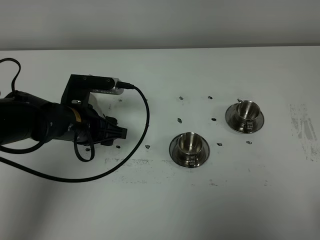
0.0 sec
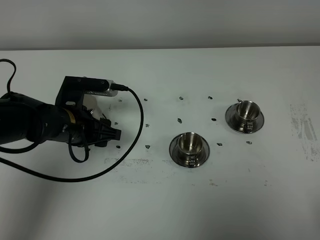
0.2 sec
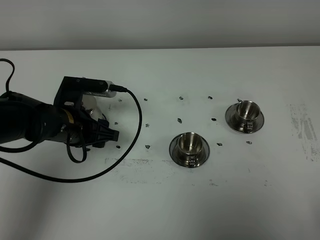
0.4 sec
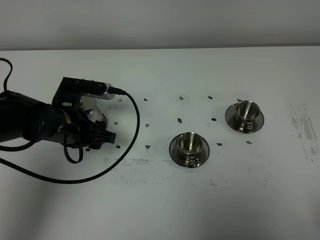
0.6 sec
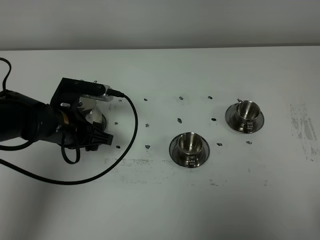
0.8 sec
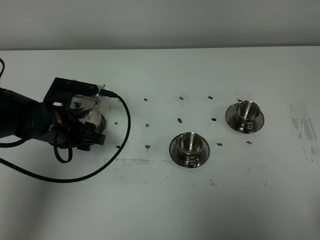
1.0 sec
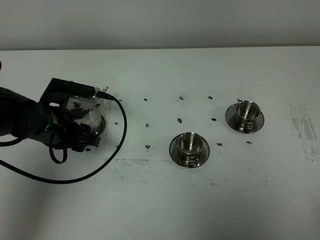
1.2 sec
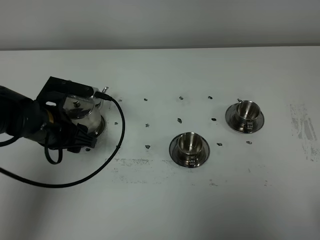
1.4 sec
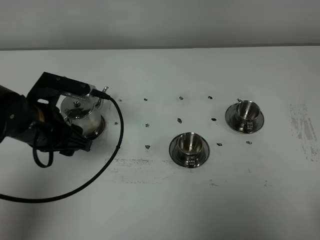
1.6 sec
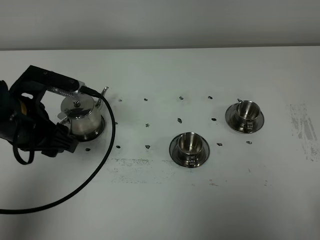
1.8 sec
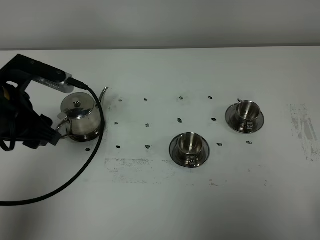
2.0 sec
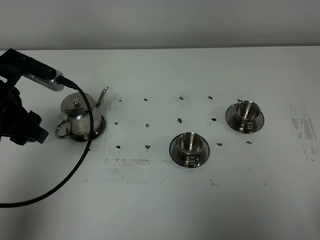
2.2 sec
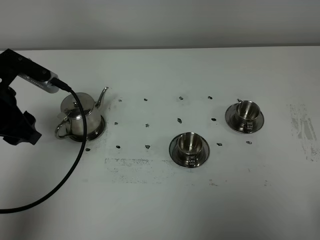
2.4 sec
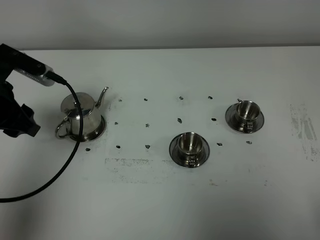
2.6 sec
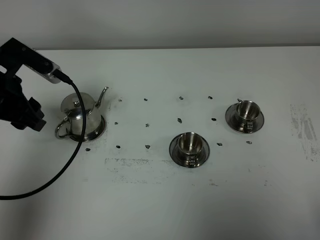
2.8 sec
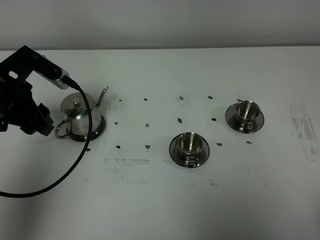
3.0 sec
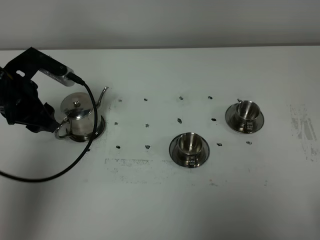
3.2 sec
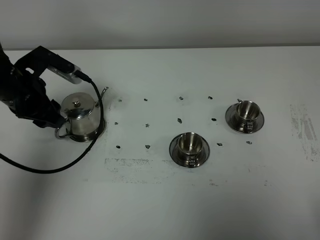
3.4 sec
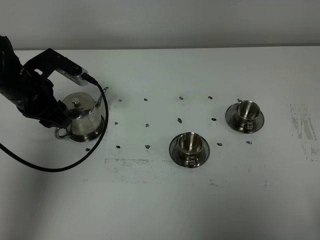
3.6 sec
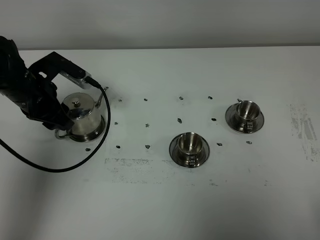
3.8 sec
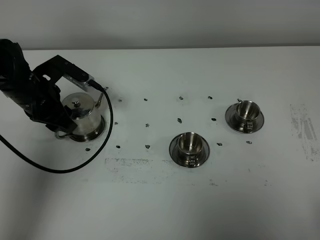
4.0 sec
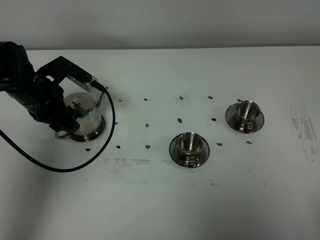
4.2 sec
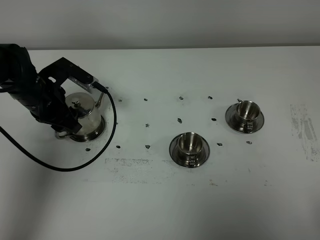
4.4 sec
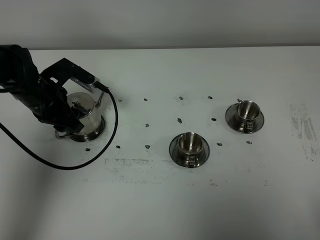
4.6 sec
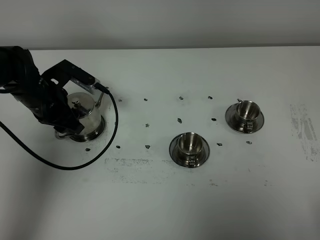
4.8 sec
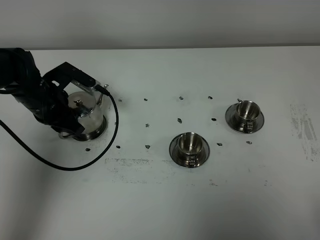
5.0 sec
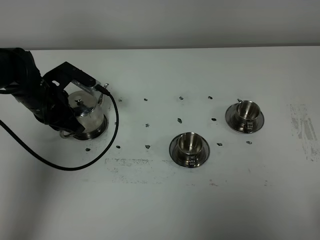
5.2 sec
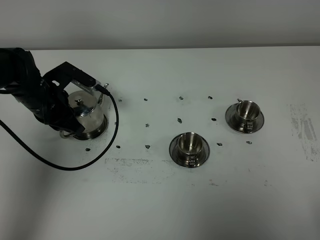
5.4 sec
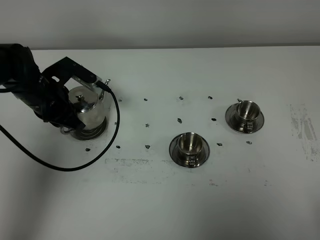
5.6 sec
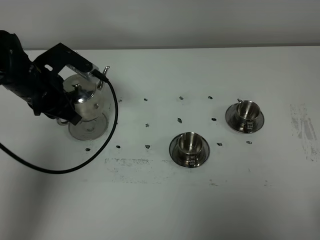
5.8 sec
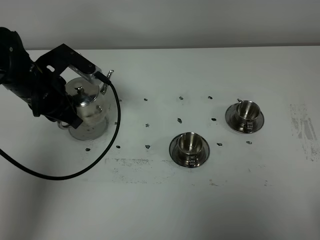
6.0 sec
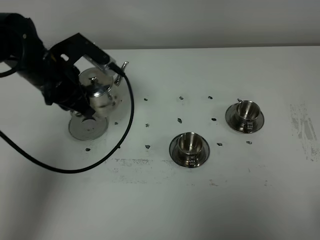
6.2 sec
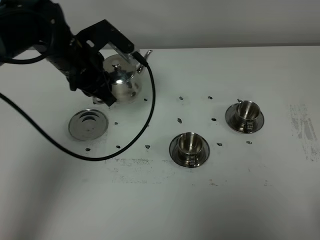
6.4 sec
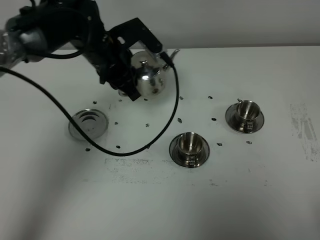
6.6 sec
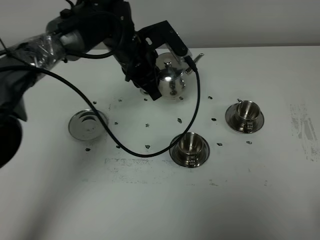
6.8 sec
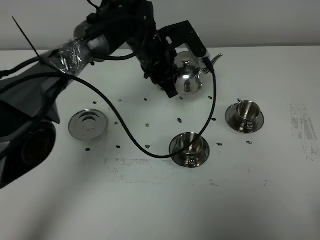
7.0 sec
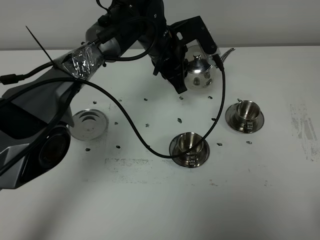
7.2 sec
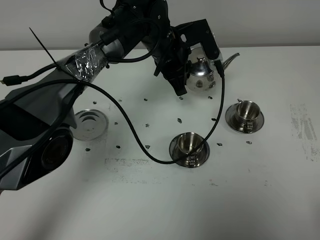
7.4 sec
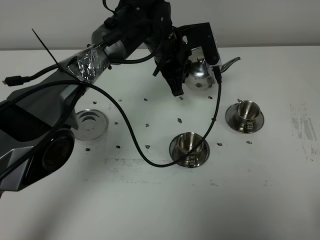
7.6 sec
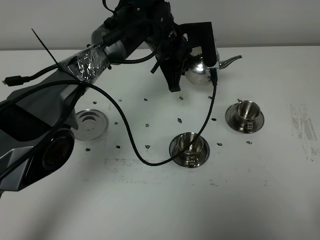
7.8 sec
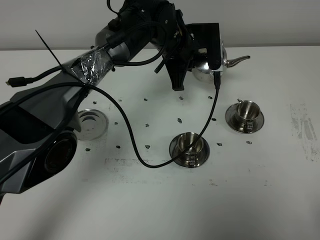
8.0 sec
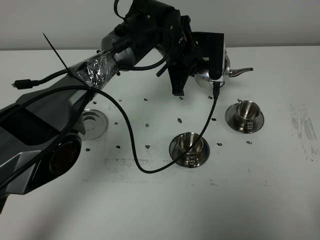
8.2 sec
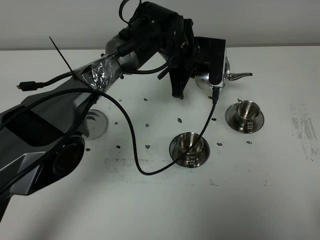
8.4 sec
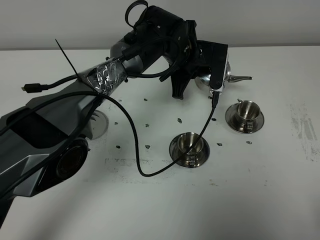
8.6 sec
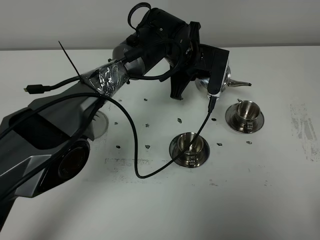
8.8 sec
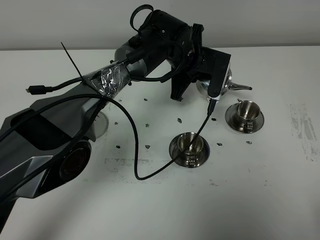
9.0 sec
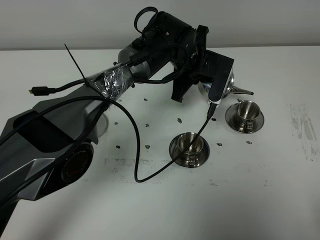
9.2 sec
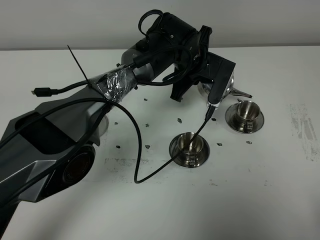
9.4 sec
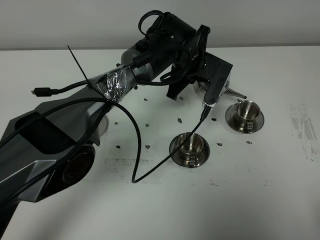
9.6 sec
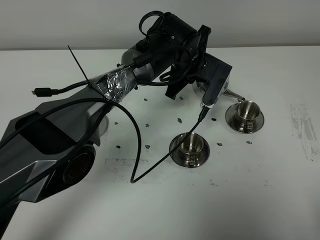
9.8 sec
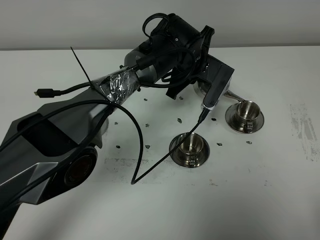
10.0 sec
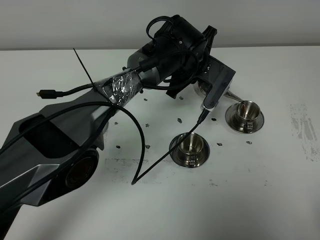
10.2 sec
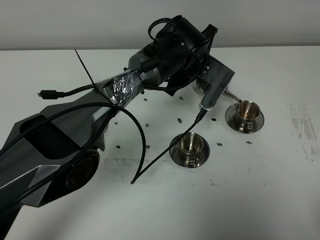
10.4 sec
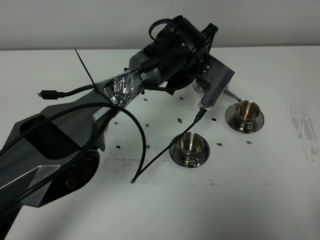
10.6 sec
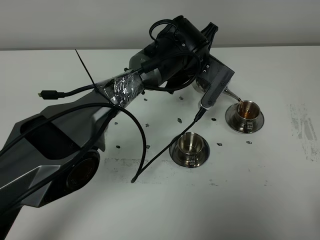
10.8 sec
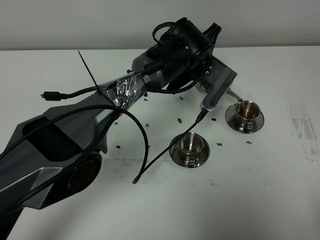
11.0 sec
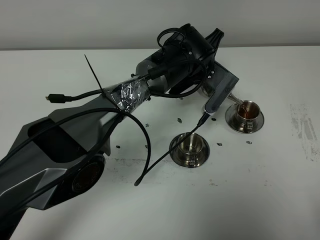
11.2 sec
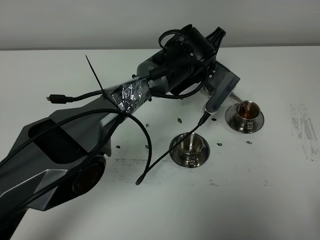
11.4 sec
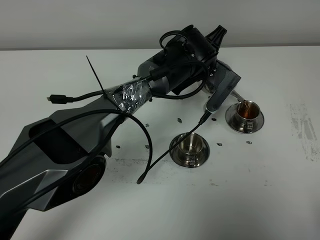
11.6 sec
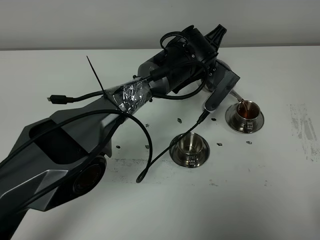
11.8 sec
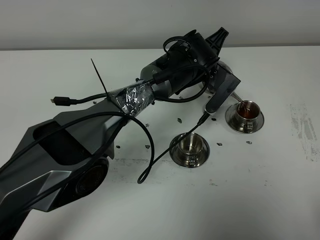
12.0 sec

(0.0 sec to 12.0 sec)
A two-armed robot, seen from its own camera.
Task of the whole recording: grasp the stainless steel teapot and pour the tea into the two stainless steel teacups one by one, put the stainless steel teapot back in its original place.
Step, 0.0 sec - 5.6 sec: Pick up the teapot with the left gripper.
0.0 sec - 1.6 sec: The left gripper changes place by some 5 cm.
1.6 sec - 3.0 sec: The left gripper shifts about 5 cm to the left.
3.0 sec - 4.4 sec: The left gripper moves downward and forward, about 10 cm.
4.4 sec - 6.0 sec: The left gripper travels upward by about 5 cm, and closes.
6.0 sec - 7.6 sec: The left gripper travels to the right and forward by about 25 cm.
10.4 sec - 12.0 sec: The grippers make only small movements.

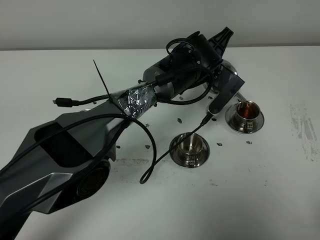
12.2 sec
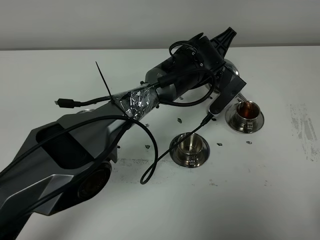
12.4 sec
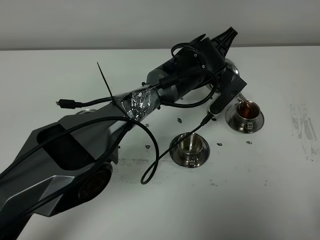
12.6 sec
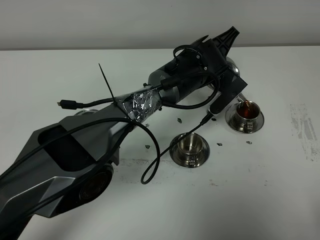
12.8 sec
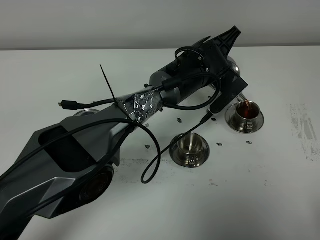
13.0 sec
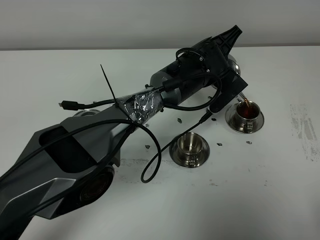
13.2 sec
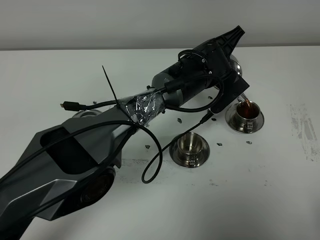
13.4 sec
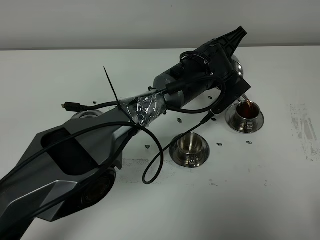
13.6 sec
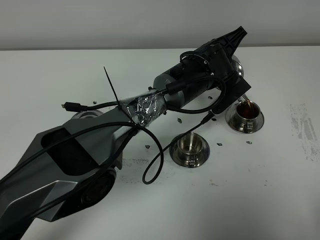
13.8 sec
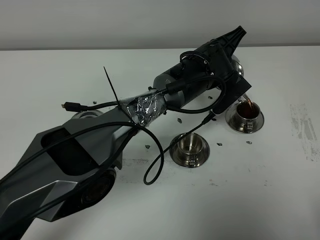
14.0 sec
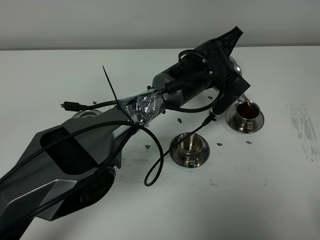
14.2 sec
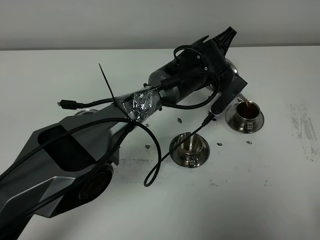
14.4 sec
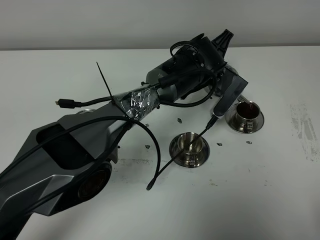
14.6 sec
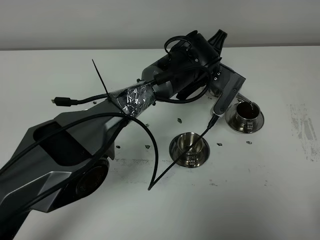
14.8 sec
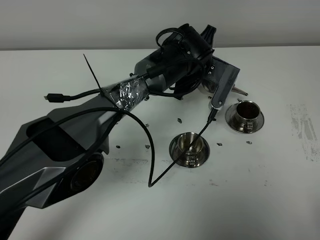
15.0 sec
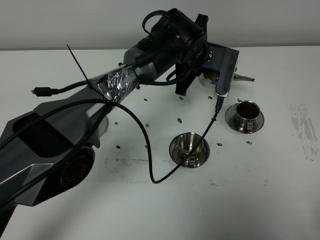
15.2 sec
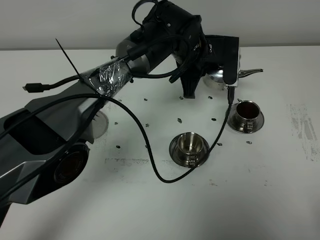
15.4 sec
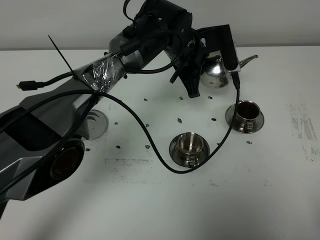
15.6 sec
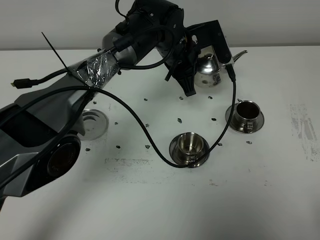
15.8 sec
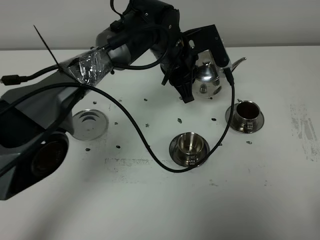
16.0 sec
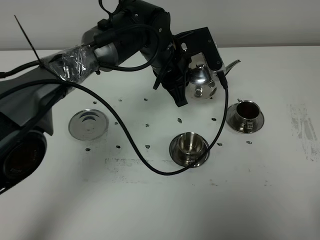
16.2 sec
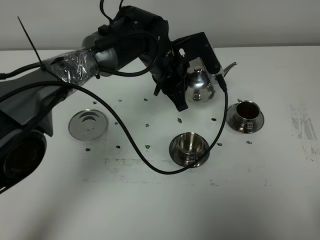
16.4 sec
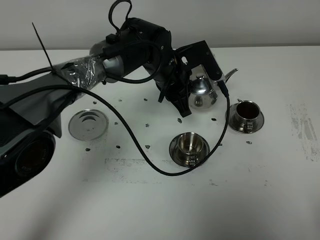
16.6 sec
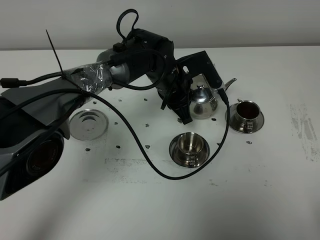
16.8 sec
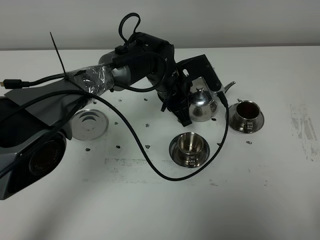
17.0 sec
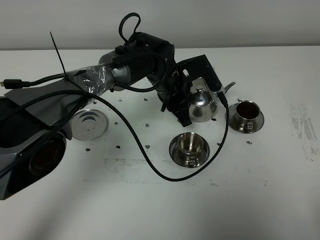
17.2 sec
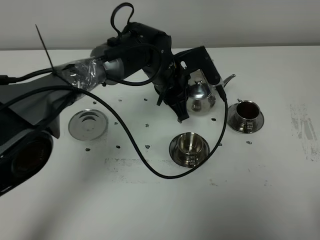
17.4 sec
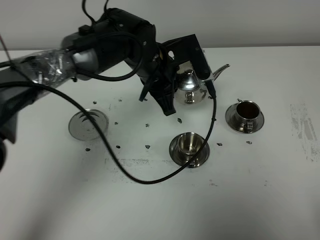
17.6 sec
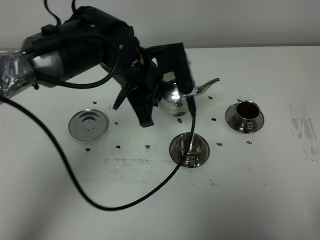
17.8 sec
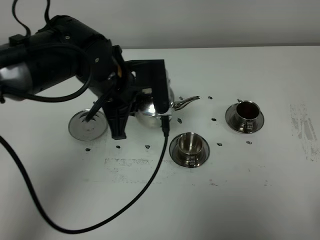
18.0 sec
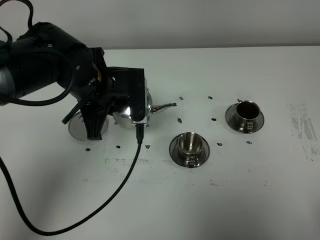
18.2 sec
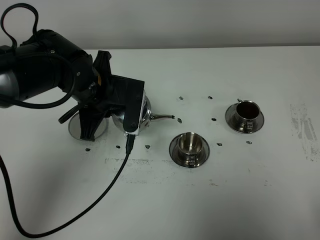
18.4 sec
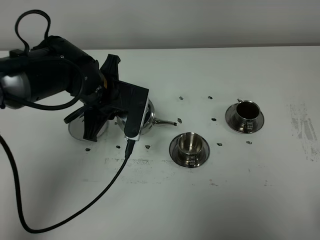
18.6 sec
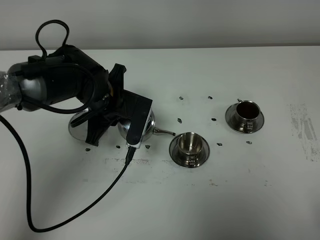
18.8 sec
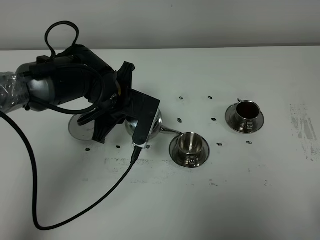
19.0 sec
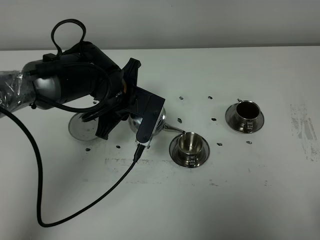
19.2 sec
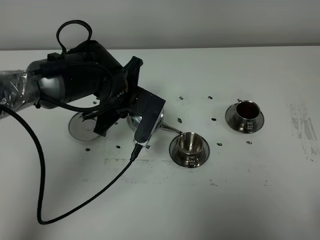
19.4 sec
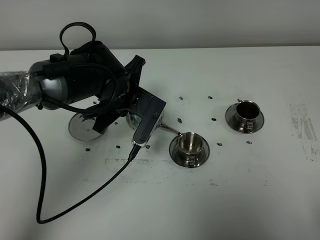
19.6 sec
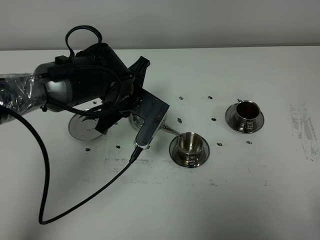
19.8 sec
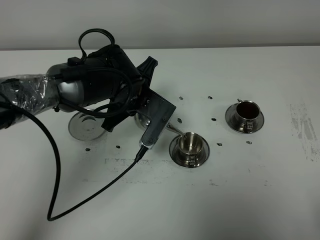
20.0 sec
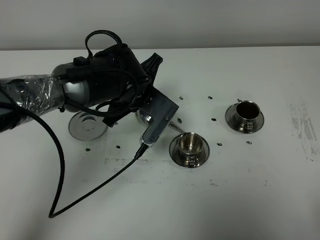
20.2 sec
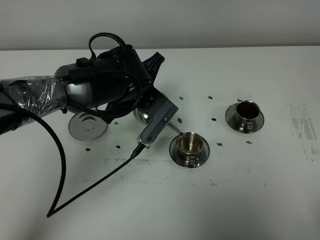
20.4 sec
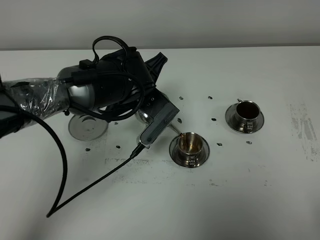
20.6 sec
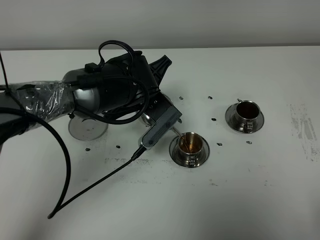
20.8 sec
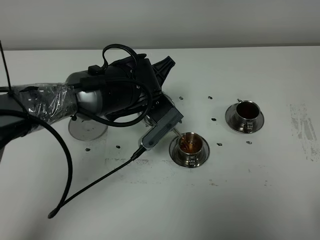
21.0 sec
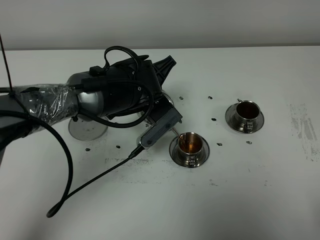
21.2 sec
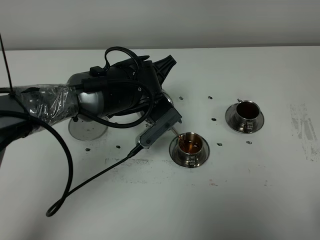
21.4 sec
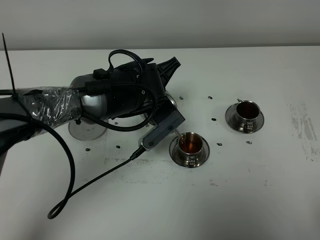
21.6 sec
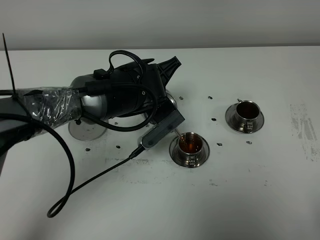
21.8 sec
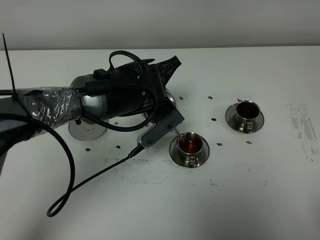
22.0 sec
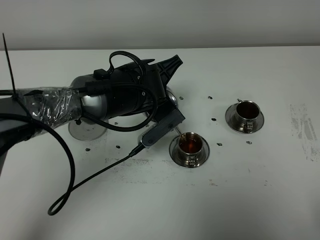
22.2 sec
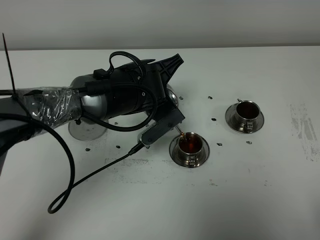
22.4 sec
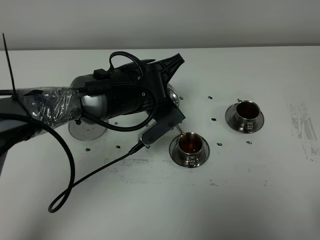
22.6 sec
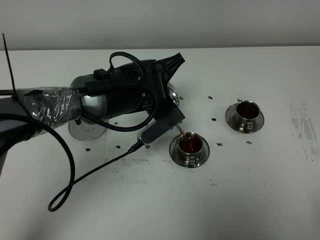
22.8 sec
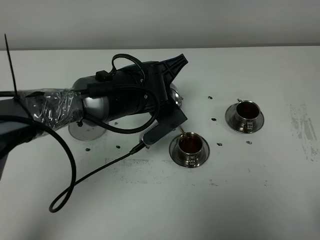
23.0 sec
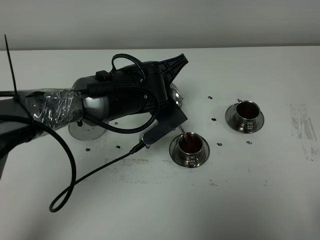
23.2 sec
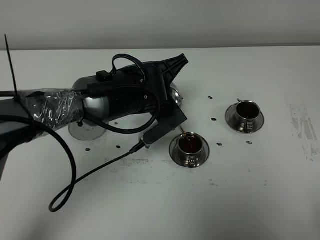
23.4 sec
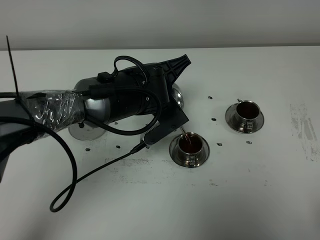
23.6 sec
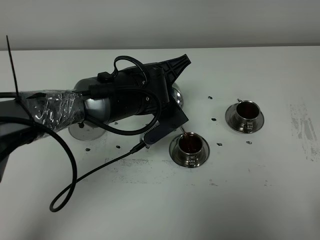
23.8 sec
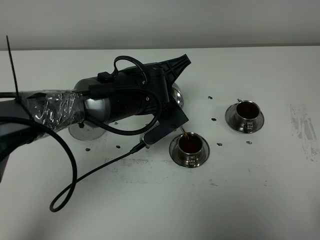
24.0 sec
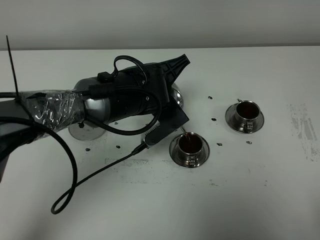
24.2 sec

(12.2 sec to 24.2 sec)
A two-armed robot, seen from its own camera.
Task of the whole recording: grasp the stainless steel teapot and pour the tea into the two stainless steel teacups one by one, put the stainless steel teapot back in its original place.
12.2 sec - 13.8 sec: The grippers make only small movements.
13.8 sec - 15.2 sec: The left gripper shifts by some 5 cm.
15.2 sec - 16.6 sec: The left gripper ends up some 5 cm from where it was.
16.6 sec - 18.2 sec: The left gripper heads to the left, backward and upward, covering some 15 cm.
18.2 sec - 19.8 sec: The left gripper moves to the right, about 5 cm.
21.2 sec - 22.6 sec: The grippers stay close to where they were, moving slightly.
22.6 sec - 24.2 sec: Both grippers stay put.
